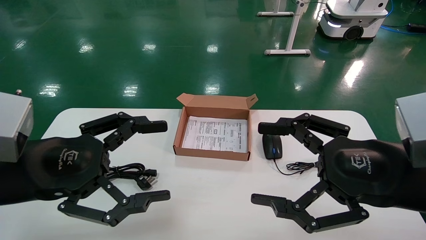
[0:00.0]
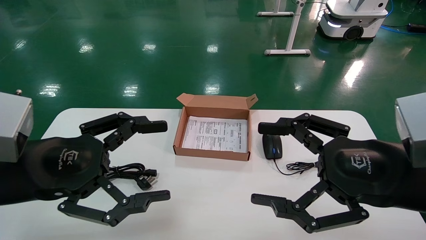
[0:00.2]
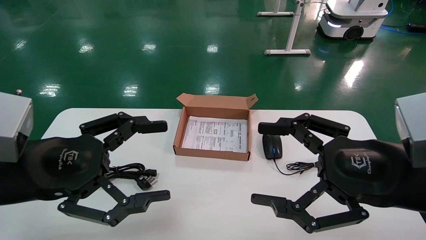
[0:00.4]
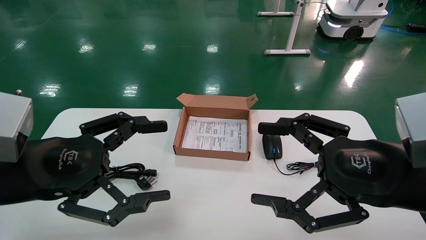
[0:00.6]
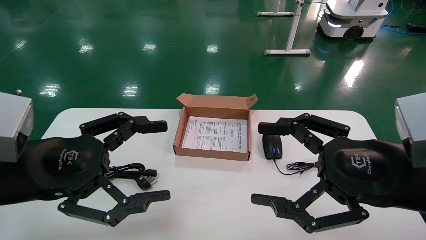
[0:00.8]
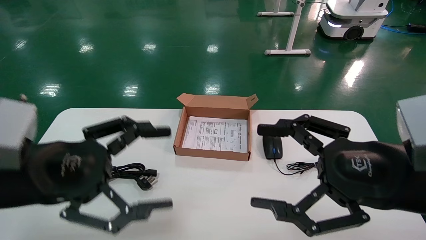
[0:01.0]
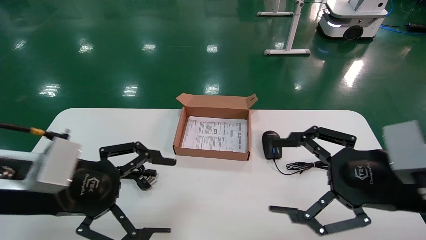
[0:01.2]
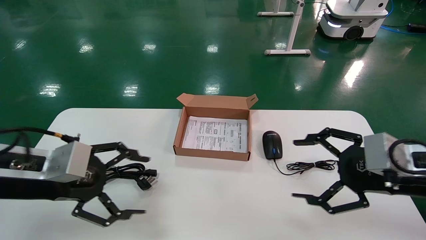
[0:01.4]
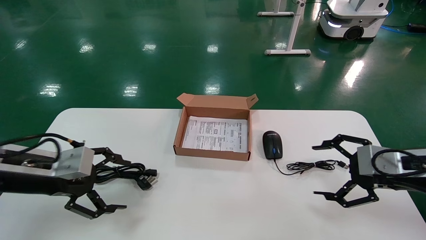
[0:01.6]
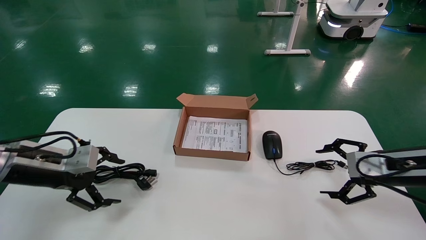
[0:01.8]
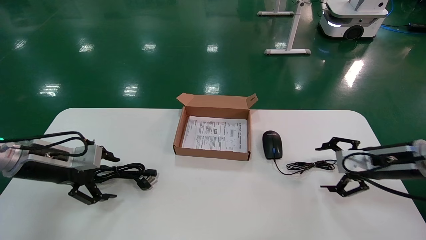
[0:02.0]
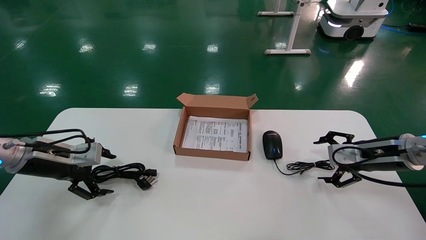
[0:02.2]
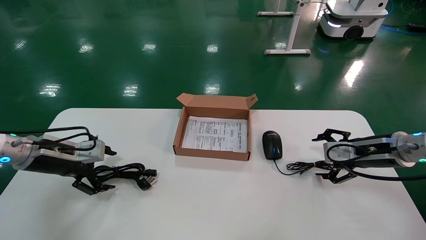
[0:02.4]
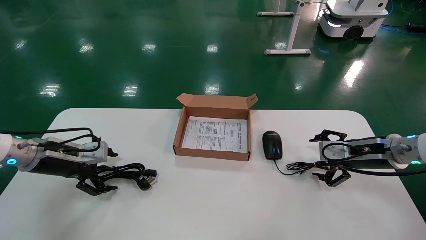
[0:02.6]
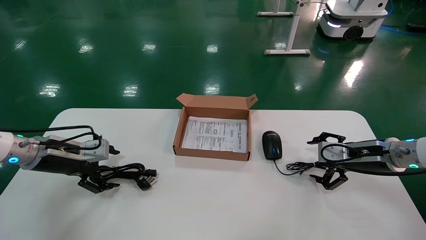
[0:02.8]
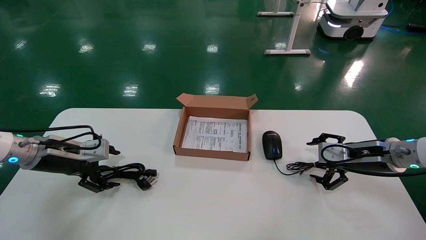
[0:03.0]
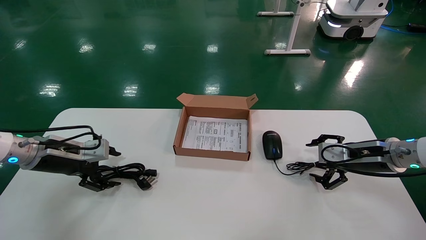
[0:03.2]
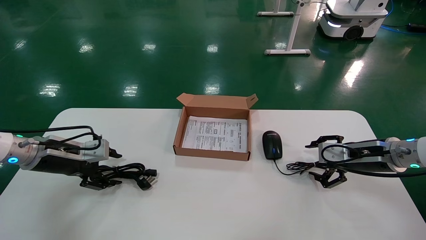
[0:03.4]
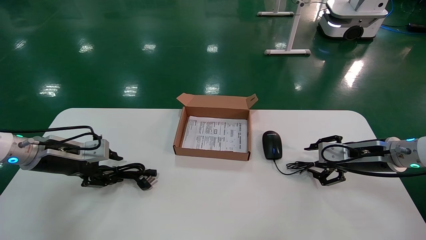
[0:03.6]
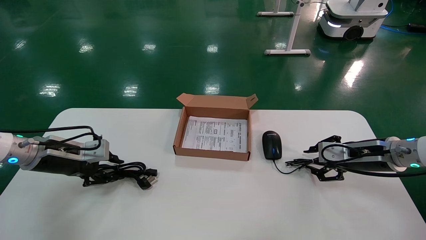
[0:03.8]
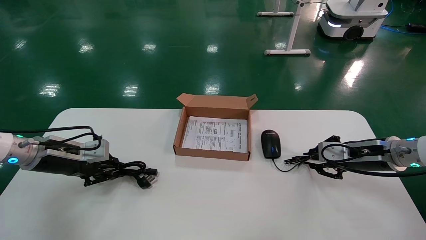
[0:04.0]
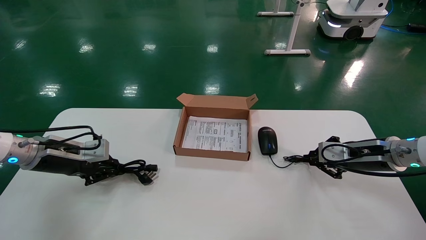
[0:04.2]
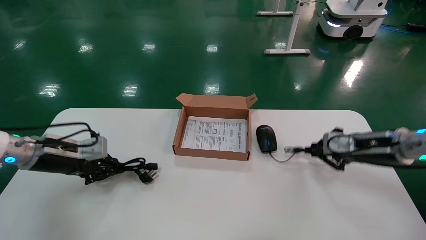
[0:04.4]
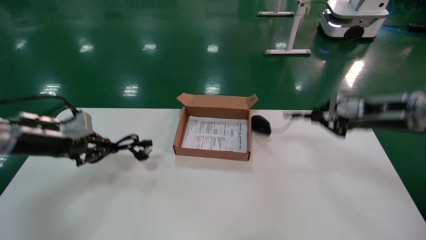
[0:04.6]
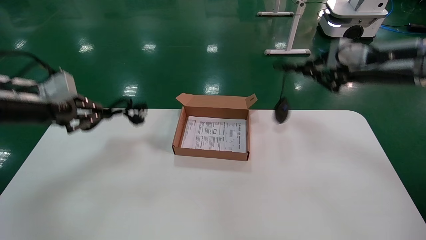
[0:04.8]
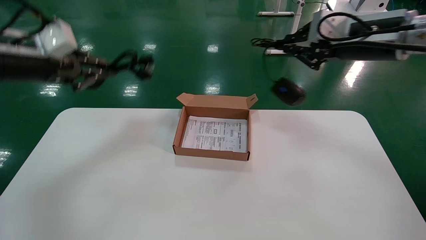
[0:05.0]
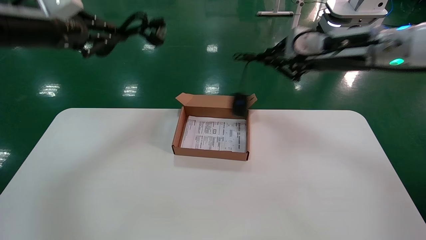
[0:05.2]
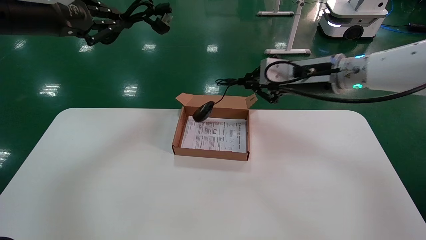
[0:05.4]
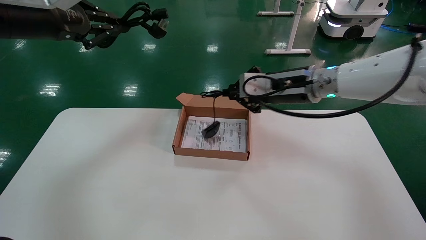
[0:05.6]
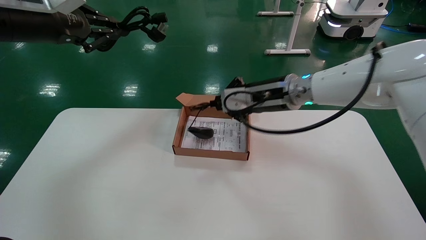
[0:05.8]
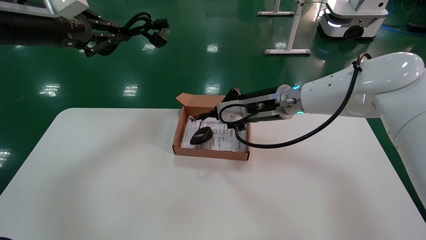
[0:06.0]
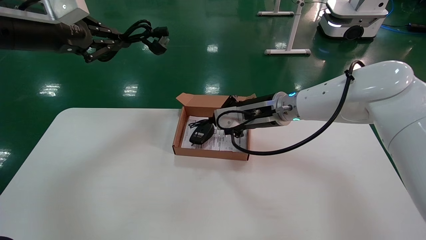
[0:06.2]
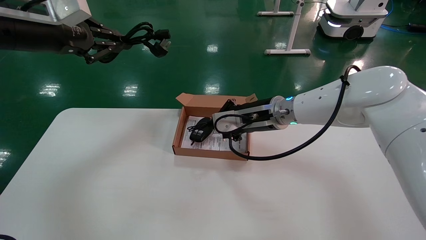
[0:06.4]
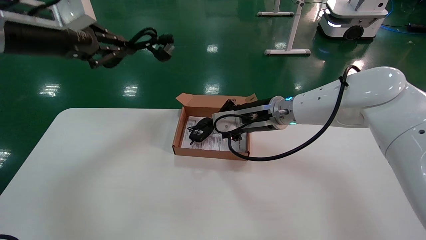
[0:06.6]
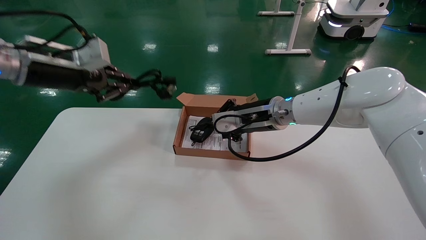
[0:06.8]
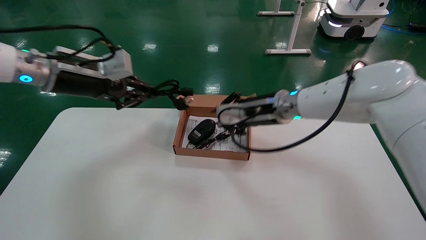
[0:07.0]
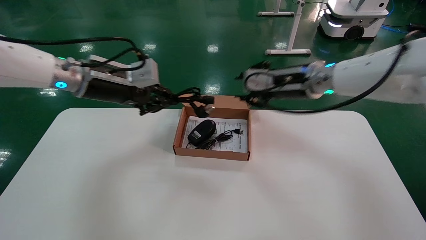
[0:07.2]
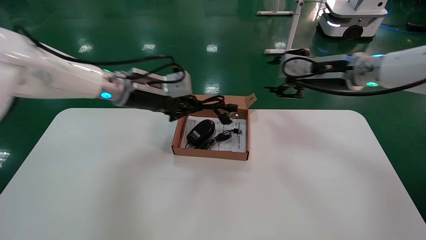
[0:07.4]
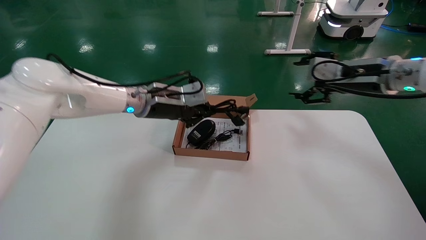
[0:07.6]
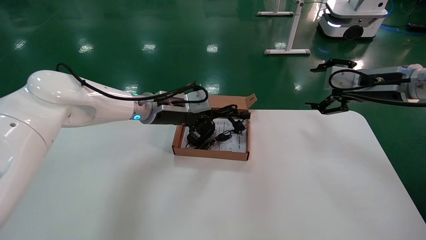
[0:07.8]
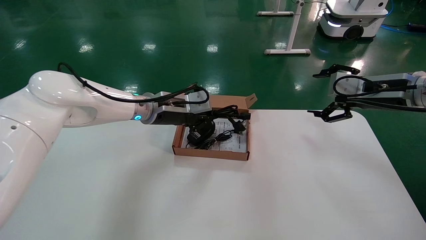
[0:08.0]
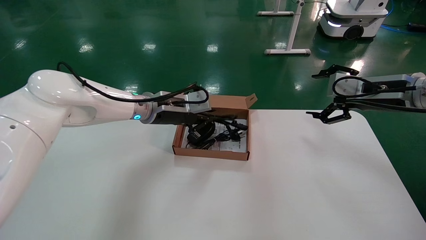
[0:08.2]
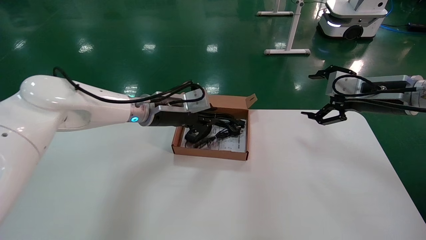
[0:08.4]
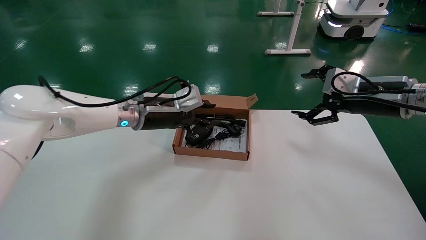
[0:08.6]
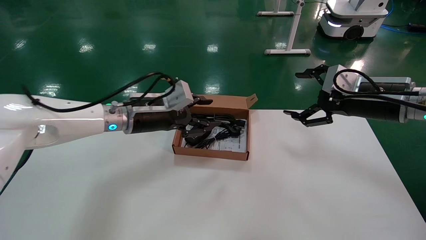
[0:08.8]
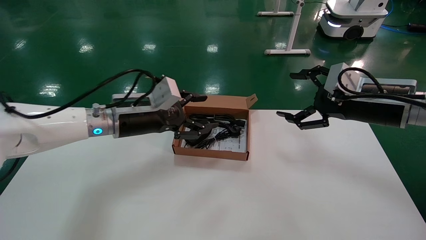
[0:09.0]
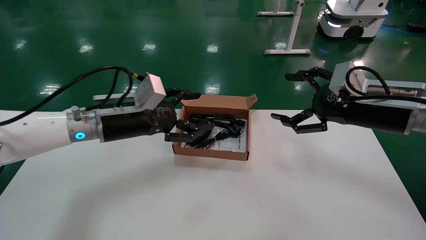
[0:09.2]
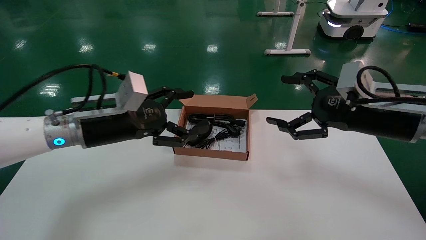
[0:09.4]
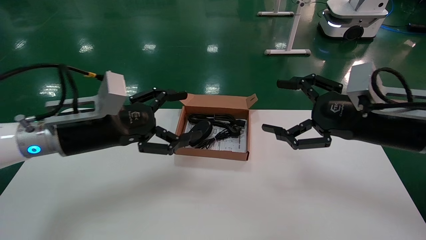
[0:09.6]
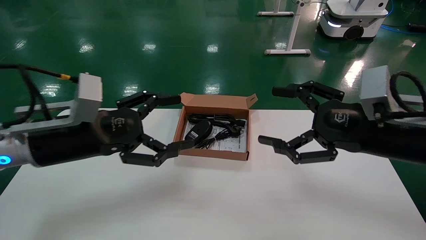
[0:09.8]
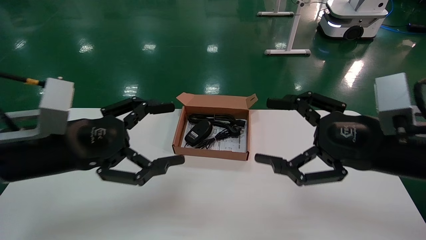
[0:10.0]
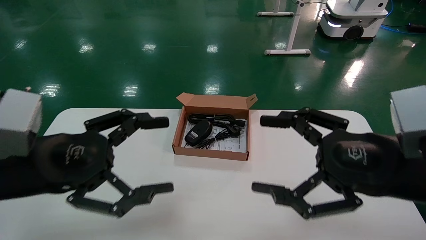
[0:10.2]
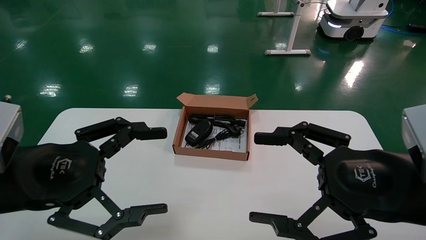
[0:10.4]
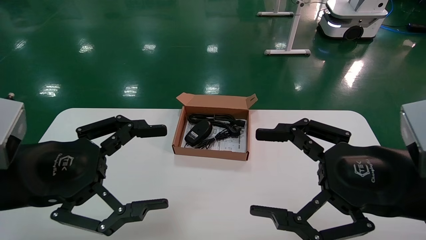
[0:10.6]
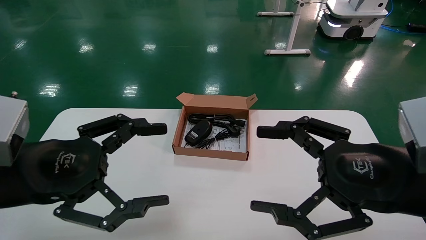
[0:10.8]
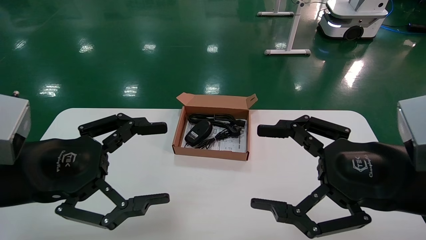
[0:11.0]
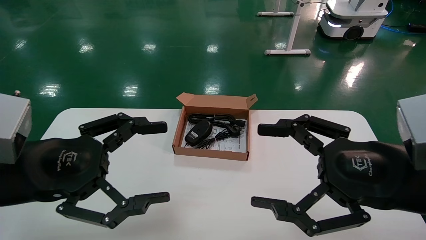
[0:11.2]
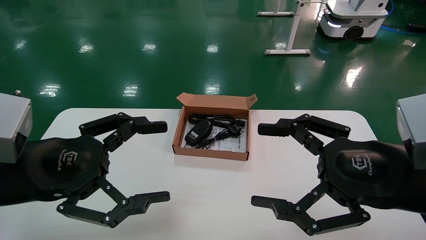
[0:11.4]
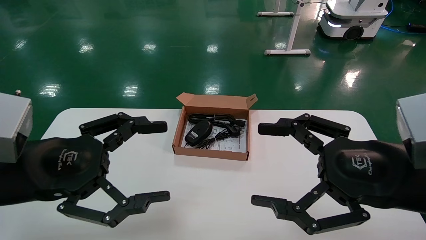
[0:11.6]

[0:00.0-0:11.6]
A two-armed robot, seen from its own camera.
Step, 0:01.4 to 0:04.2: Grab and lift both the mouse and power cord from the accessory packaging area at the same time.
Step, 0:04.4 to 0:08.6: Place the mouse and power cord into the box.
0:00.0 to 0:01.4: The left gripper moves forward, roughly 5 cm. Meanwhile the right gripper moves forward and to the right, about 10 cm.
0:01.4 to 0:02.8: The left gripper heads forward and to the left, covering some 15 cm. The right gripper shifts approximately 15 cm forward and downward.
0:02.8 to 0:04.4: The right gripper moves upward, roughly 5 cm, and closes. Meanwhile the left gripper closes up.
0:04.4 to 0:05.8: The right gripper shifts roughly 20 cm to the left, while the left gripper heads upward, covering some 25 cm.
0:05.8 to 0:07.2: The left gripper travels downward, to the right and forward by some 15 cm, while the right gripper shifts about 5 cm to the right.
0:07.2 to 0:08.8: The left gripper is displaced downward and to the right by about 10 cm, and opens its fingers; the right gripper travels to the right and backward by roughly 15 cm, and opens up.
0:08.8 to 0:10.2: The left gripper goes approximately 25 cm backward and to the left, and opens up. Meanwhile the right gripper goes roughly 15 cm backward.
0:10.2 to 0:11.6: The grippers stay close to where they were, moving slightly.

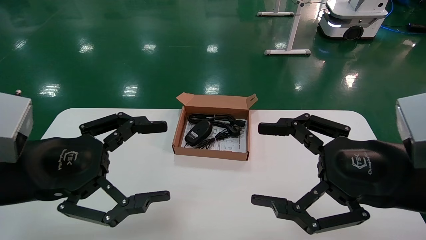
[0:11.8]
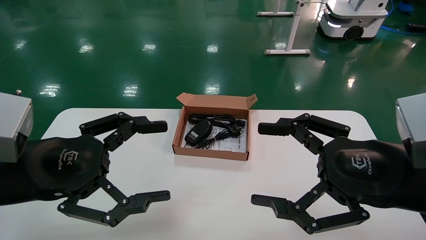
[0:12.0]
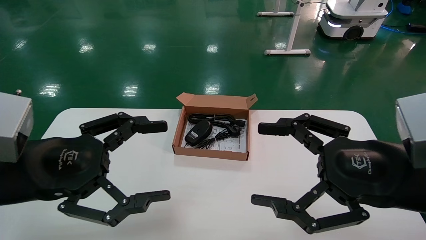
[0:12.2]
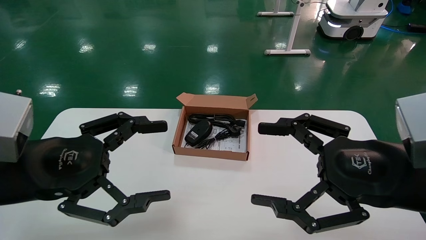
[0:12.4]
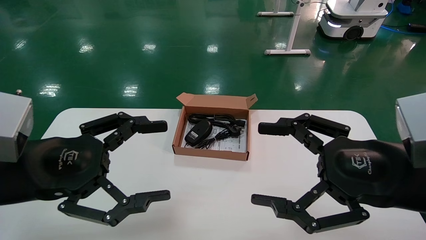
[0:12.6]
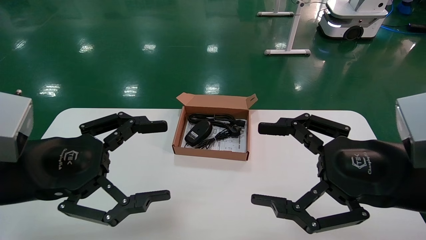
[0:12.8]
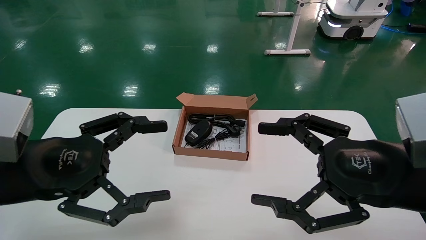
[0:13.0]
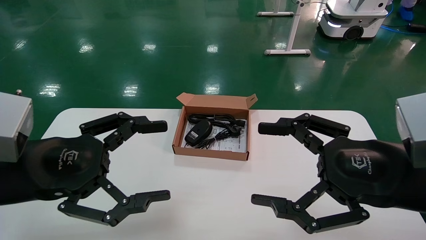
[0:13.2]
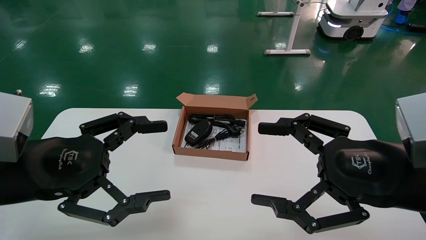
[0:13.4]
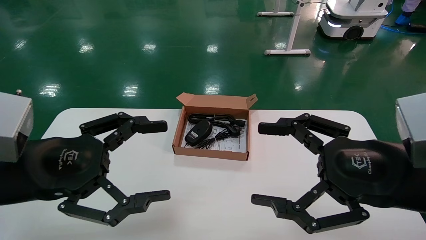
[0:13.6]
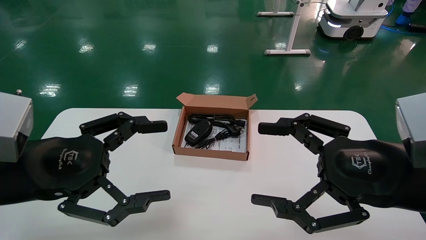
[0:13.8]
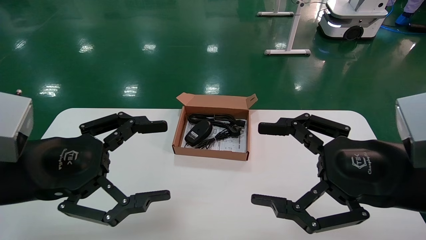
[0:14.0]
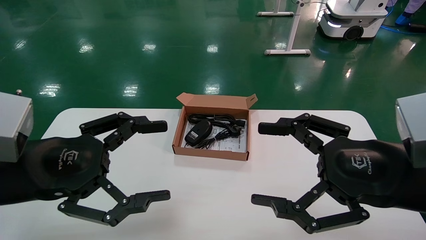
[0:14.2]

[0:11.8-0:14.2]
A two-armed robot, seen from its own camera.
0:11.8 to 0:14.2: Neither gripper changes place.
